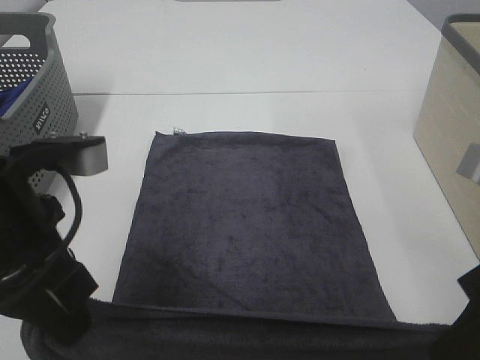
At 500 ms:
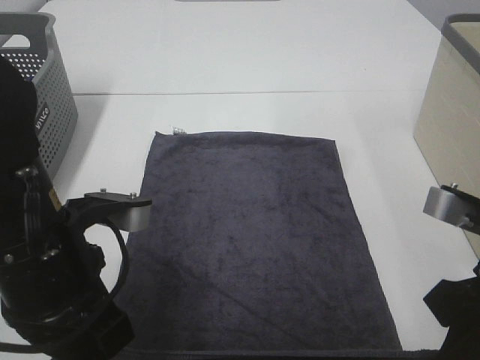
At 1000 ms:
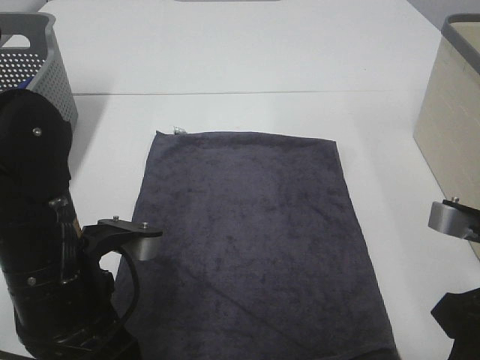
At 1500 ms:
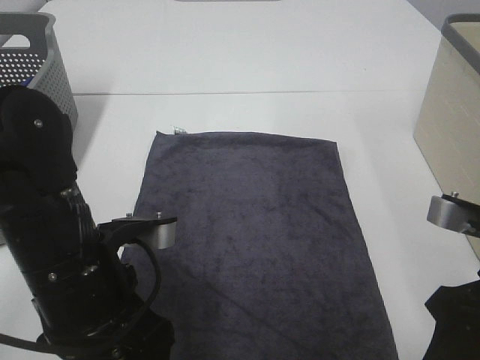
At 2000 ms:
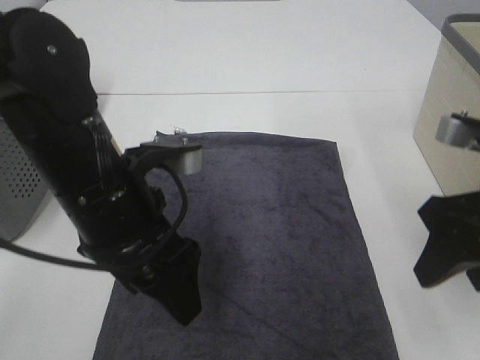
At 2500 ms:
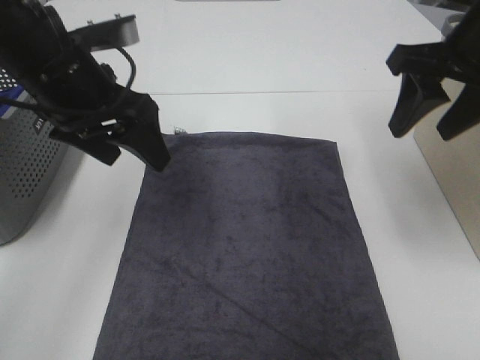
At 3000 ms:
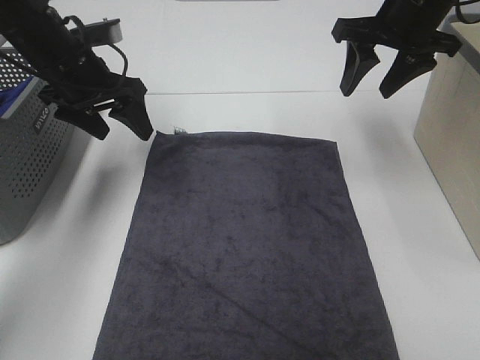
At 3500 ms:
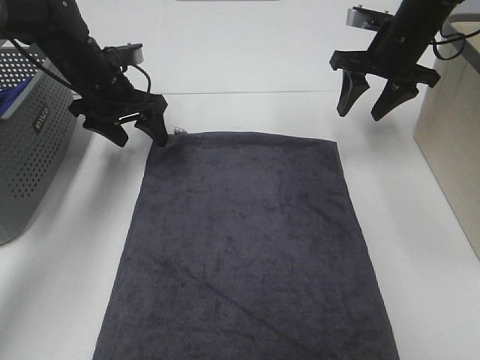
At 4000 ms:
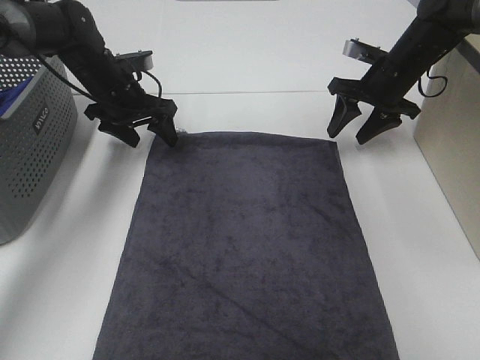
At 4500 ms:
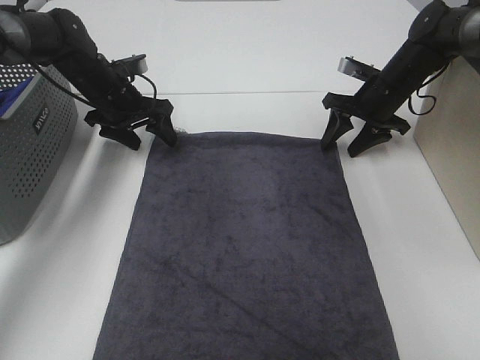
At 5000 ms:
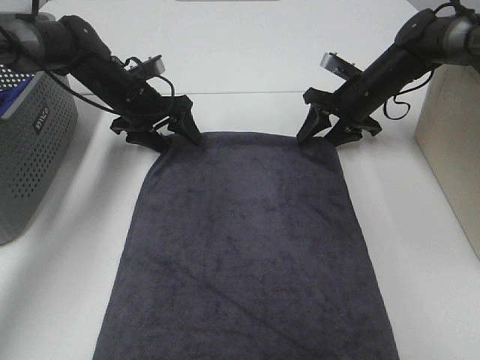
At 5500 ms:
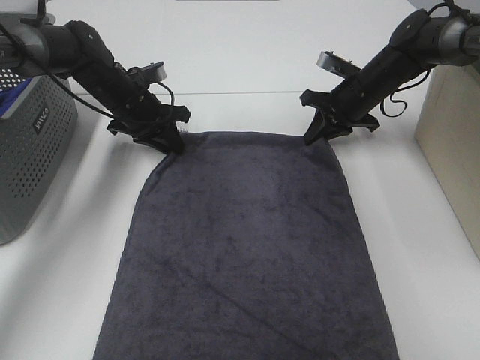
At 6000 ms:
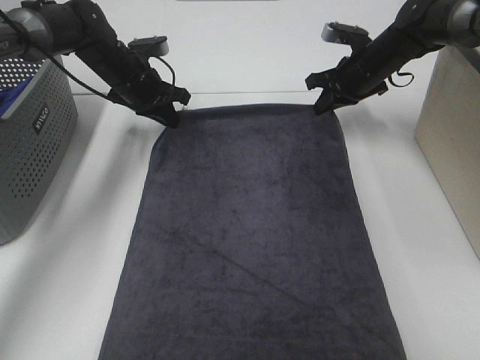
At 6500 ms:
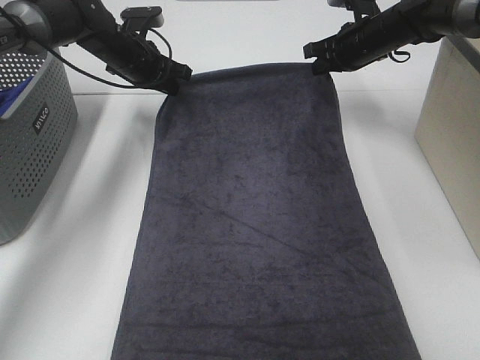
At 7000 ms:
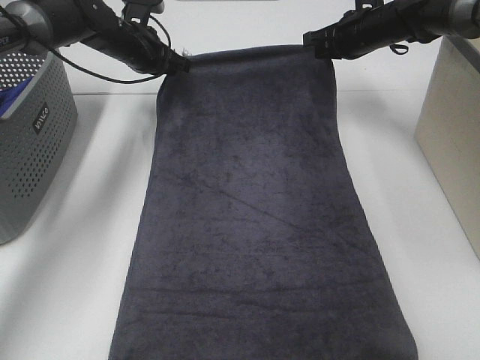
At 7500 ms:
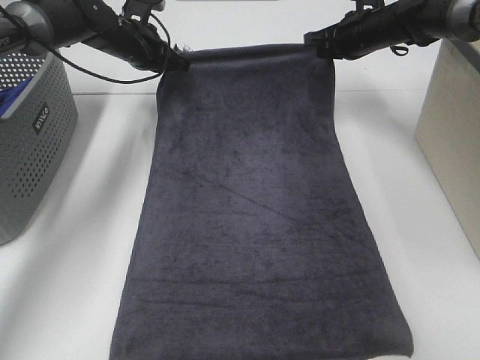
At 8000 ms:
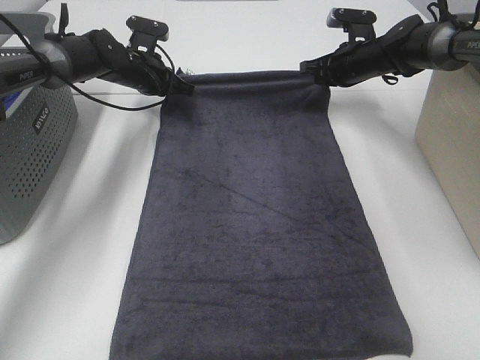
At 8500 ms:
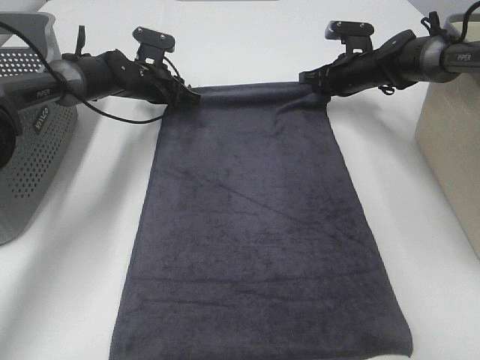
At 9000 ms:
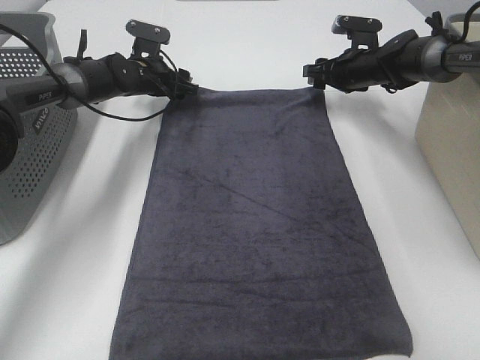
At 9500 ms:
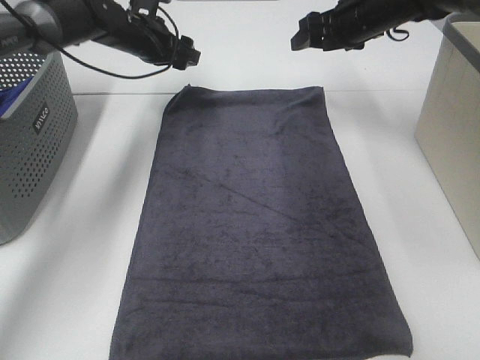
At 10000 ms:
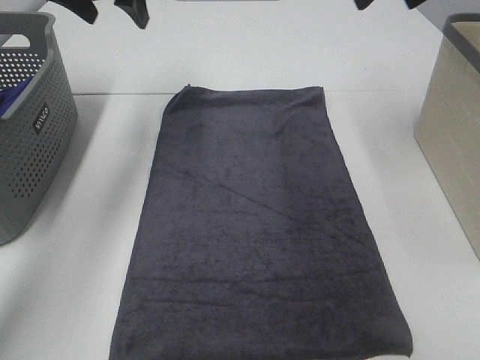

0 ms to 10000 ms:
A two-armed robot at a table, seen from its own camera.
Task of the whole recording: Remove the towel and place it.
0 ms to 2000 ms: The left gripper travels to the right by roughly 5 cm, and opens its fingers, while the right gripper goes roughly 5 cm forward, and opens its fingers.
2000 ms to 4000 ms: The two grippers go some 30 cm forward.
4000 ms to 6000 ms: The right gripper closes its fingers, while the left gripper closes up.
8000 ms to 10000 ms: The grippers both shift upward and backward by about 25 cm. The left gripper opens; the right gripper opens up.

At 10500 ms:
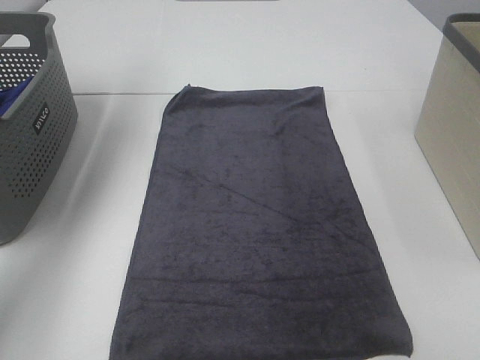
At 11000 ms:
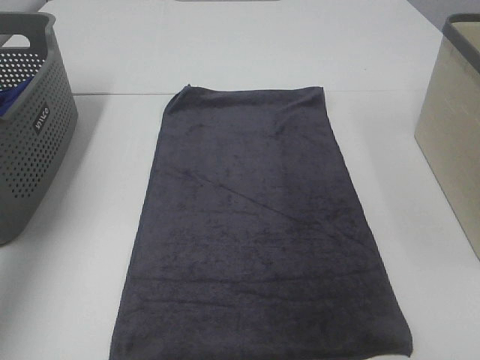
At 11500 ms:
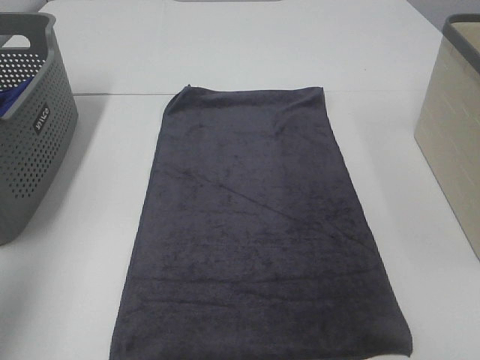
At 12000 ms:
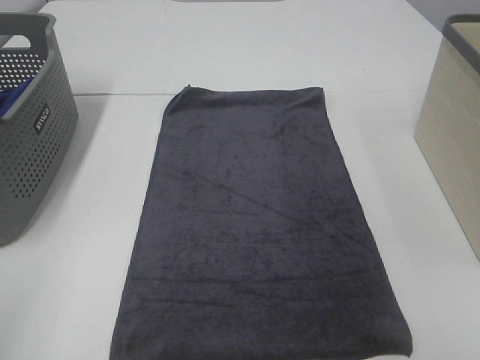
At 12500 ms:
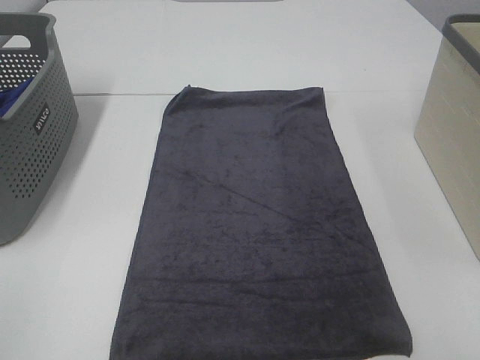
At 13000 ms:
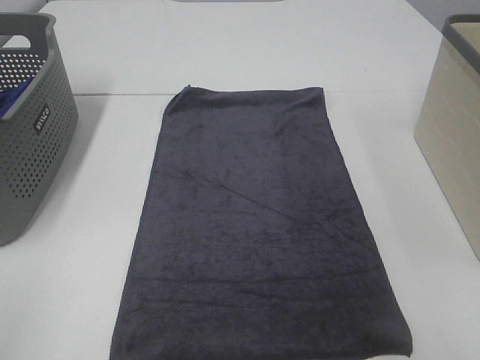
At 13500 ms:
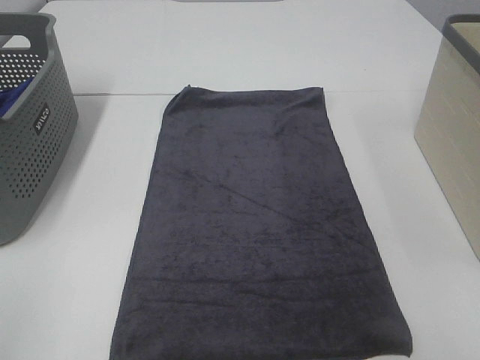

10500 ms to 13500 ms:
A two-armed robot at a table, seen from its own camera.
Task of the whole recording: Remove the towel and place it.
10500 ms to 12000 ms: The left gripper heads backward, covering about 40 cm.

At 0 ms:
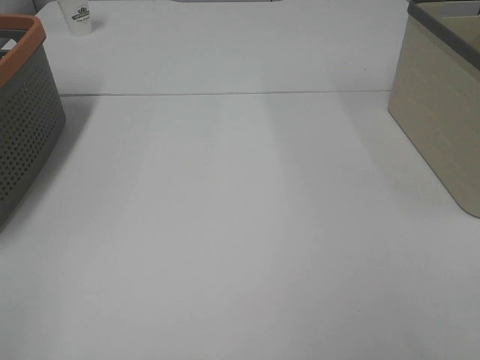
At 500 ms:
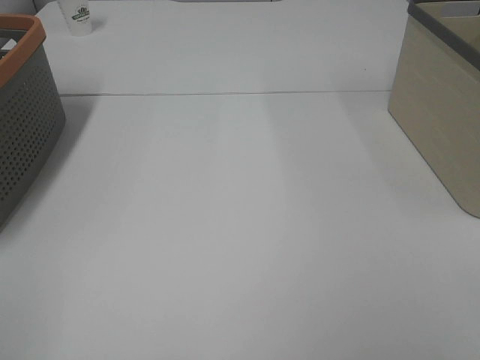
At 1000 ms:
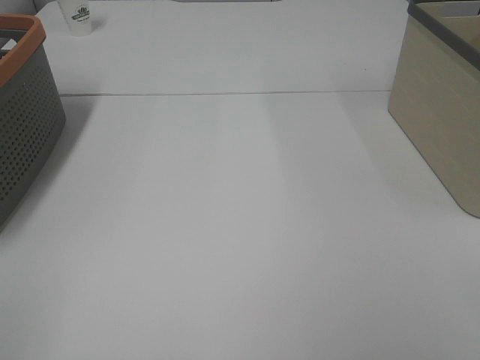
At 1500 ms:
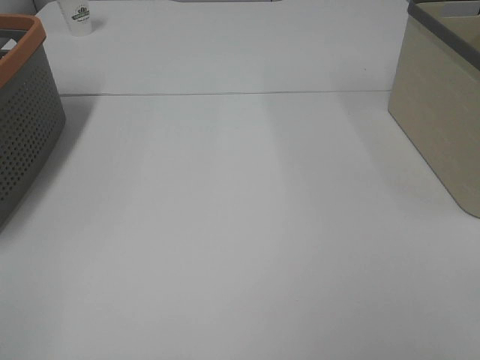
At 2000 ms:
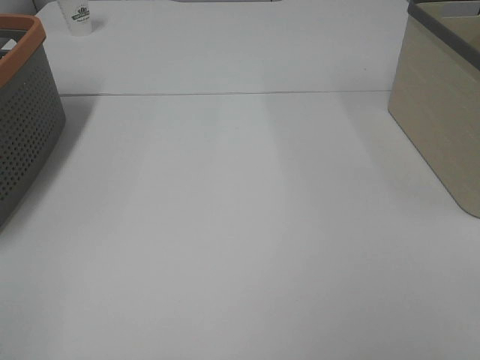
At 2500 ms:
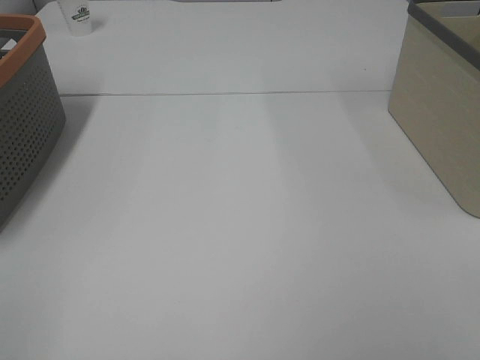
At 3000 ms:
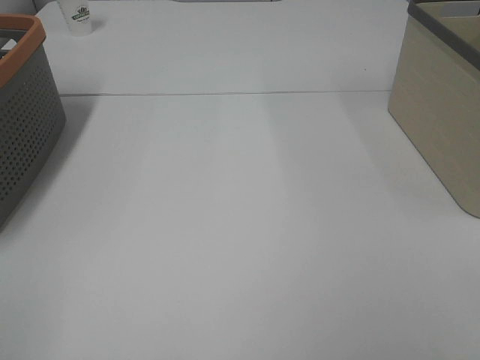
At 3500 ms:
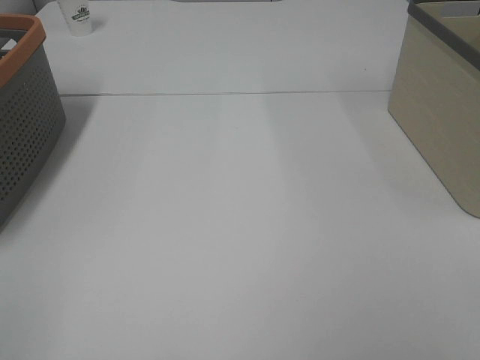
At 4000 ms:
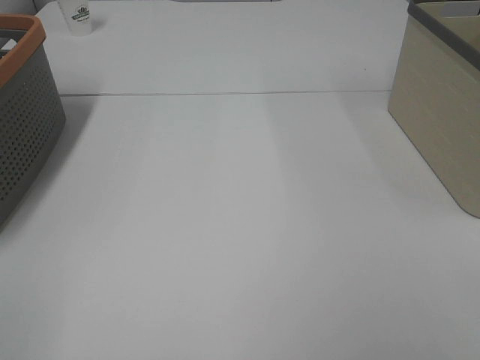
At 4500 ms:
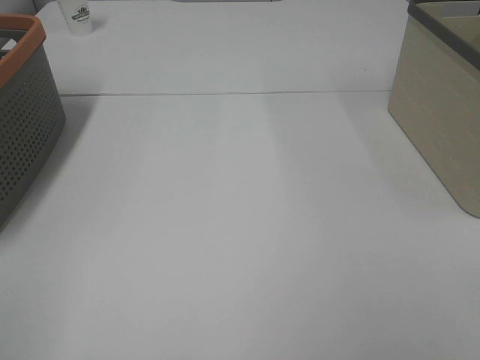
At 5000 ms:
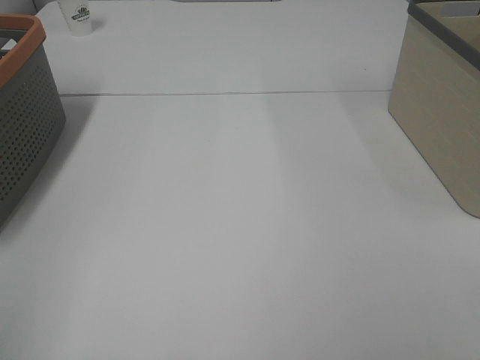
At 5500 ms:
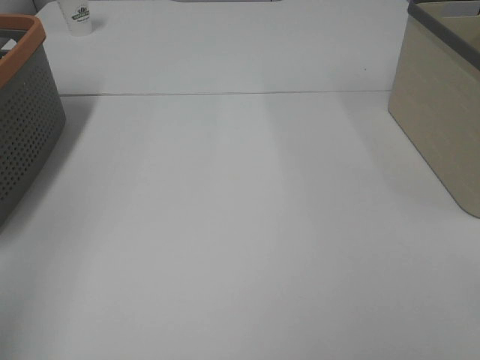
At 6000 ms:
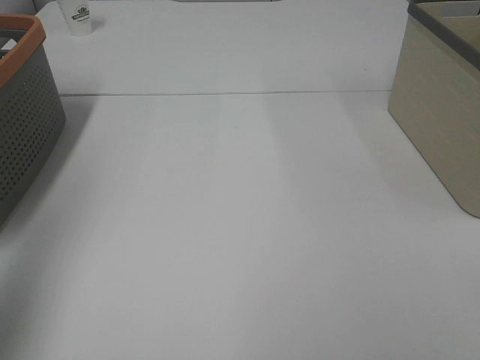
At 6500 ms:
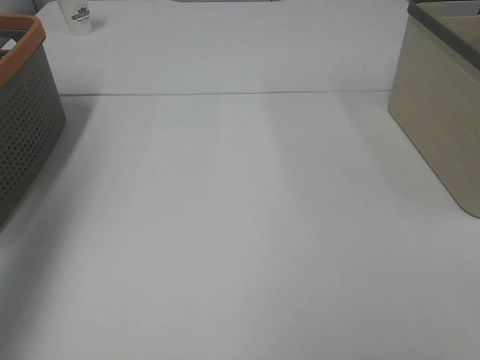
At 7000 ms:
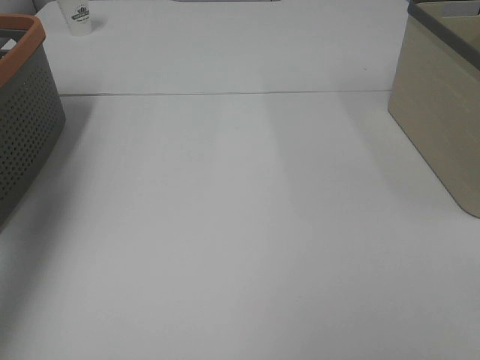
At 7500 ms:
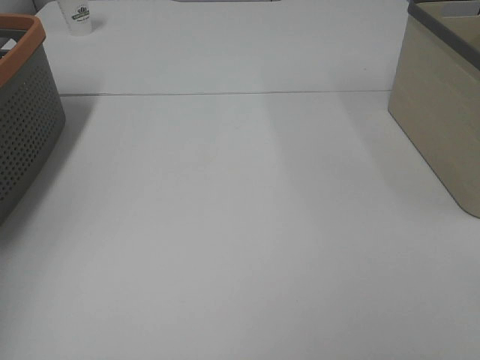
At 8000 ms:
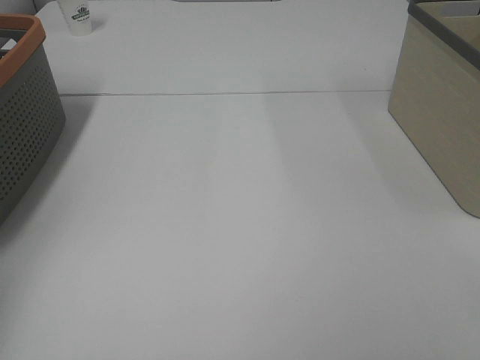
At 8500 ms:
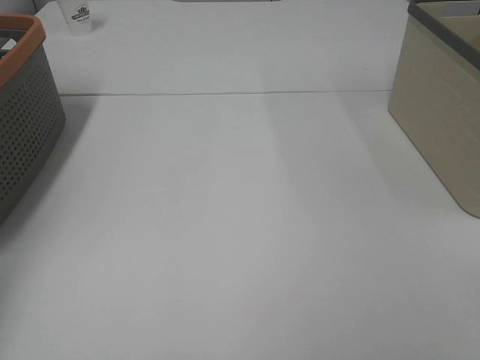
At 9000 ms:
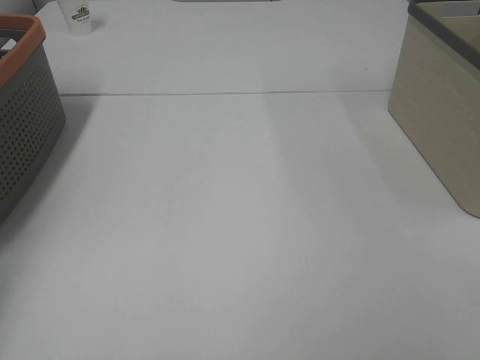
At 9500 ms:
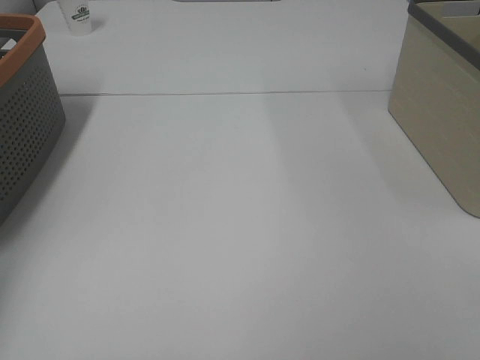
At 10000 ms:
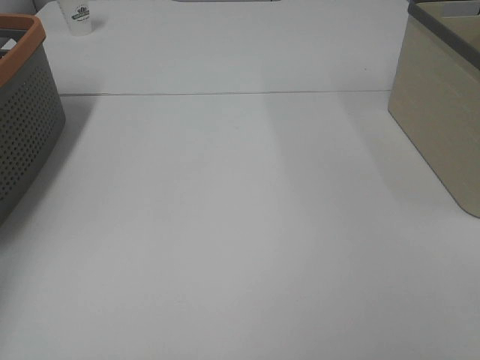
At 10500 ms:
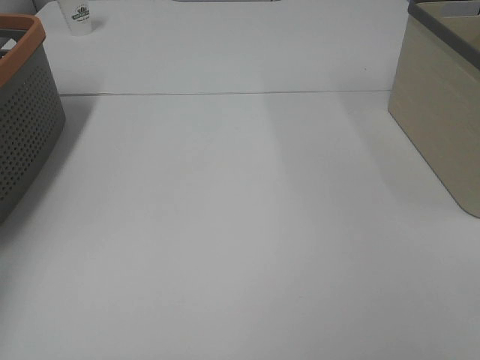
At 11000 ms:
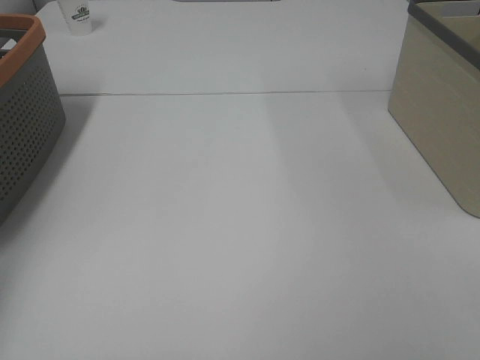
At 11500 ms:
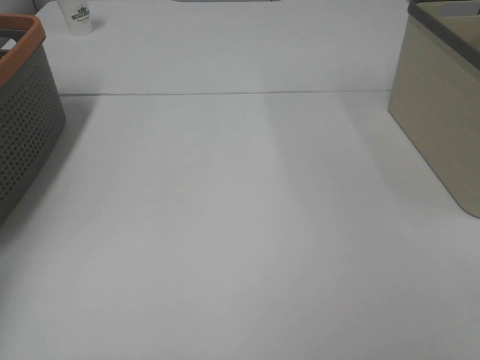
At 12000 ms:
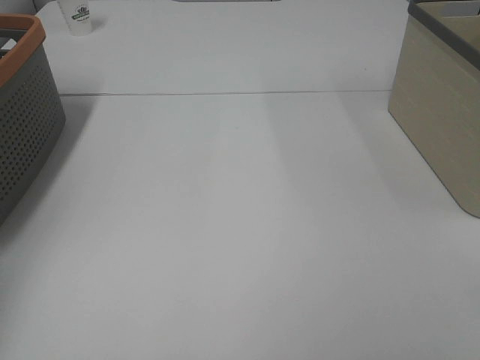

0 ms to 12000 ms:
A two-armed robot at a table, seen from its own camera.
Task of the whole recording: Remove the towel and place it.
2000 ms to 4000 ms: Both grippers stay about where they are.
4000 ms to 6000 ms: The left gripper is displaced forward and upward by some 15 cm.
6000 ms to 8000 ms: The left gripper travels forward and to the left by some 25 cm.

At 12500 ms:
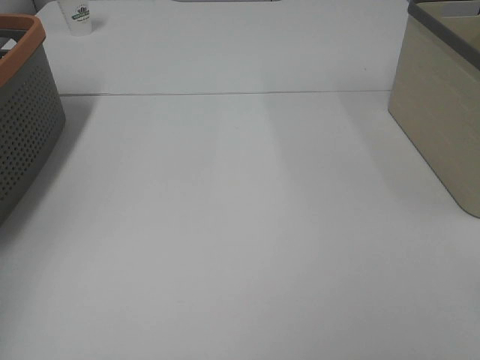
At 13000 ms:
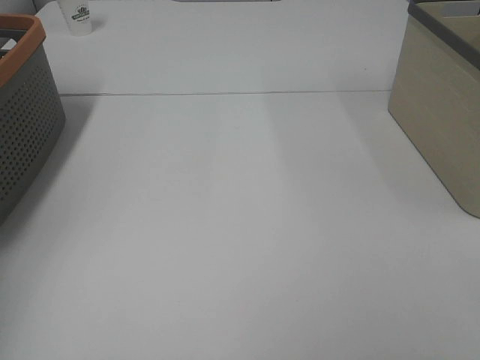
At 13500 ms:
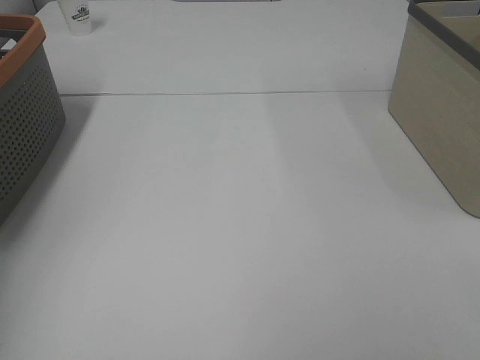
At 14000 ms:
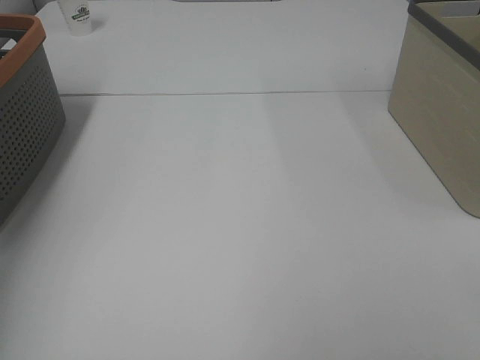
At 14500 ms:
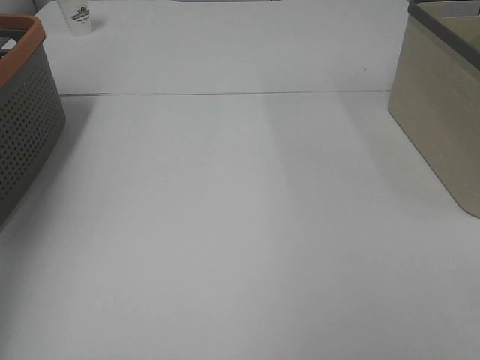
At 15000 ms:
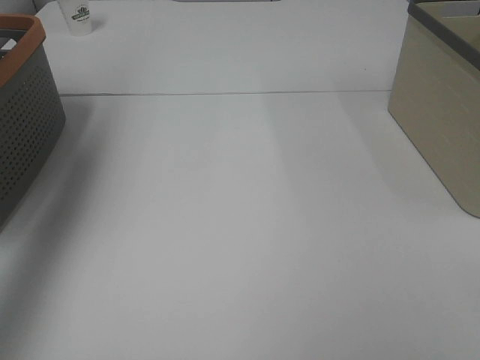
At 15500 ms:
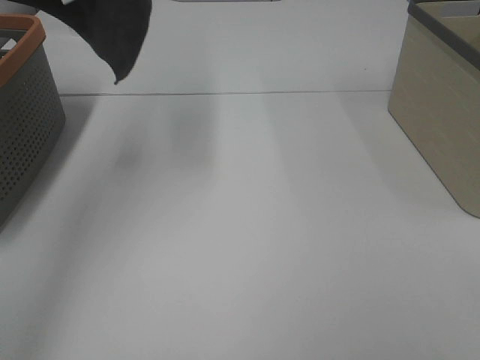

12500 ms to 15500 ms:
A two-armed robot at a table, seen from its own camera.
Task of the whole recording: Remove the towel and place it.
14000 ms to 15500 ms: The left gripper goes approximately 20 cm to the right and upward.
